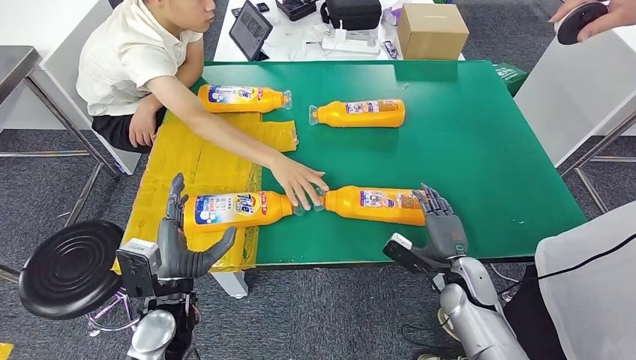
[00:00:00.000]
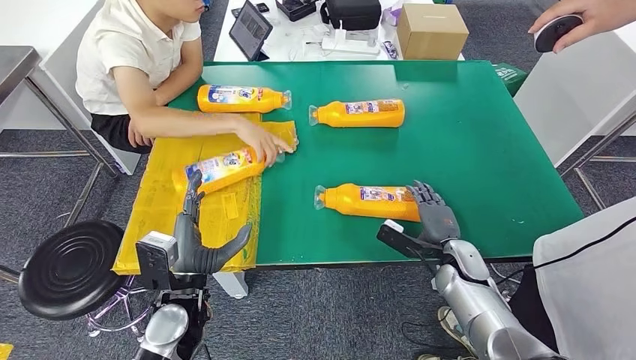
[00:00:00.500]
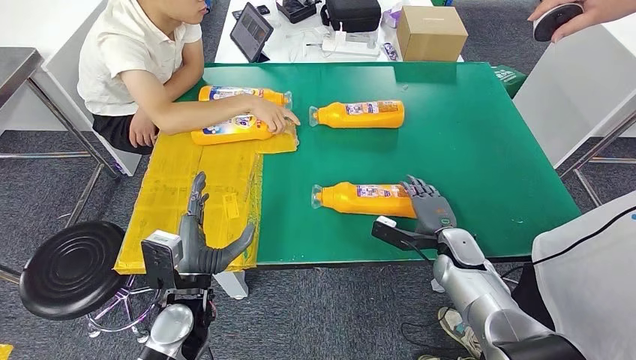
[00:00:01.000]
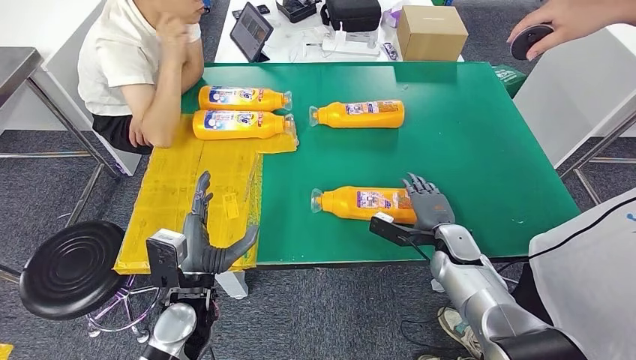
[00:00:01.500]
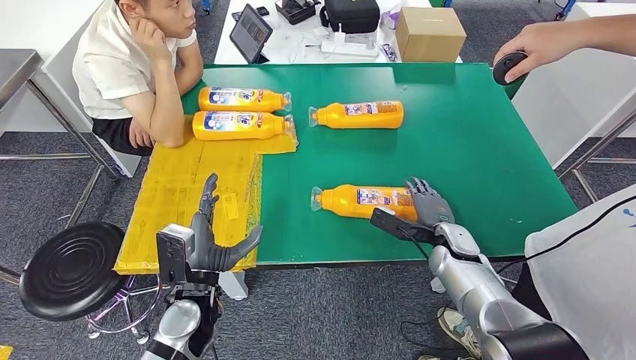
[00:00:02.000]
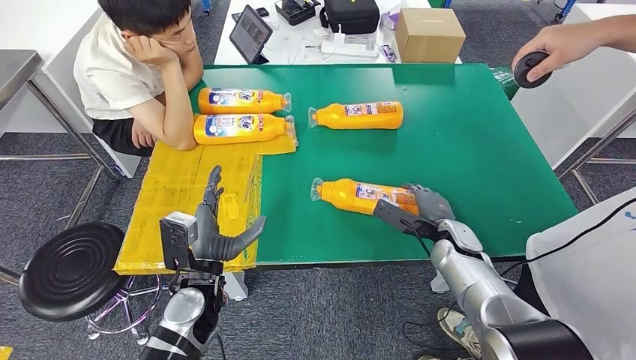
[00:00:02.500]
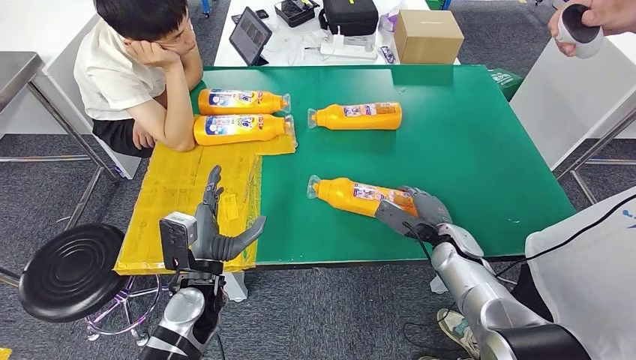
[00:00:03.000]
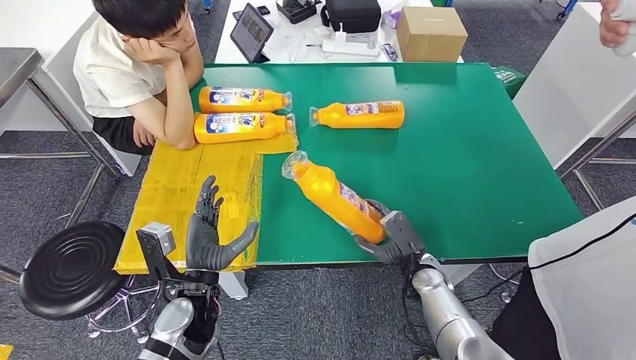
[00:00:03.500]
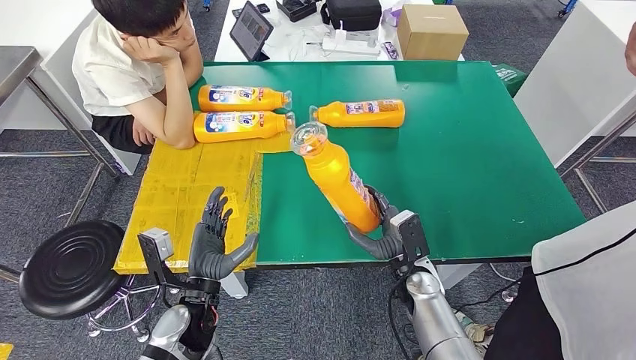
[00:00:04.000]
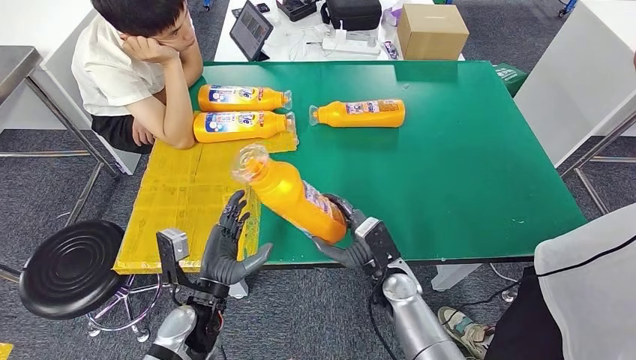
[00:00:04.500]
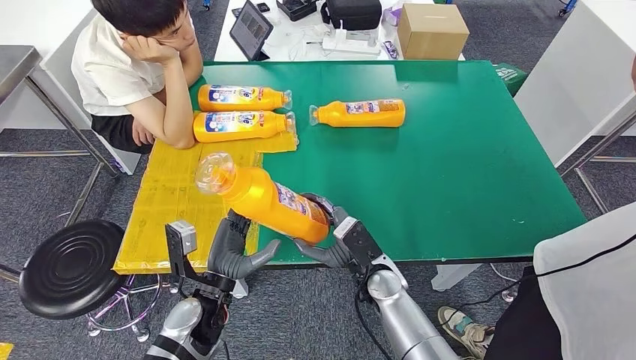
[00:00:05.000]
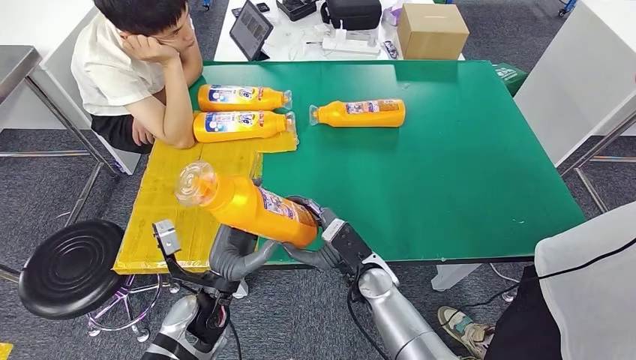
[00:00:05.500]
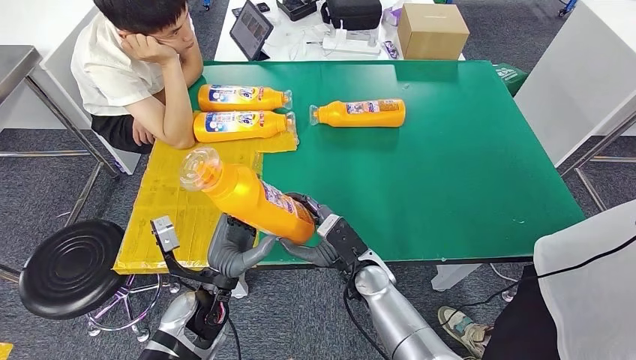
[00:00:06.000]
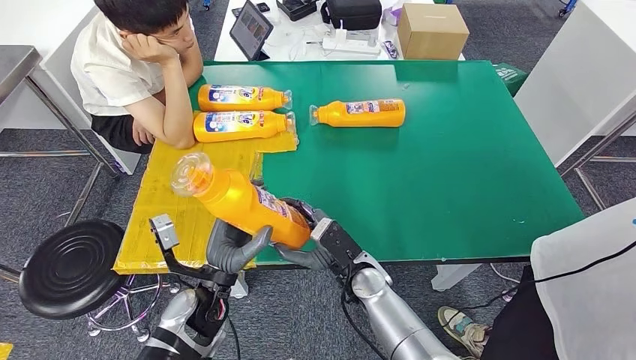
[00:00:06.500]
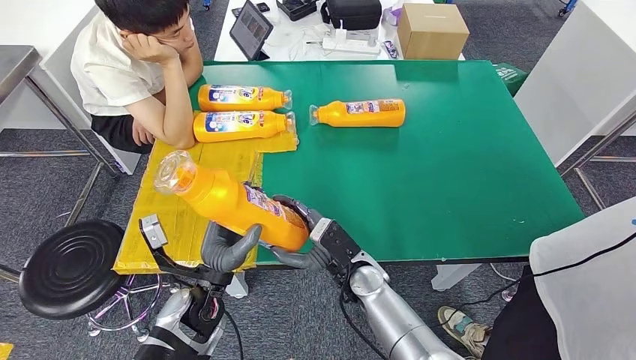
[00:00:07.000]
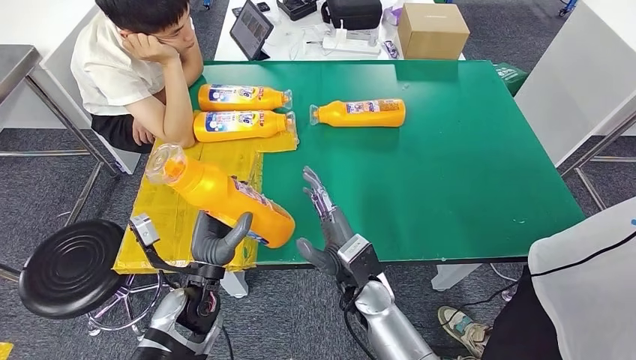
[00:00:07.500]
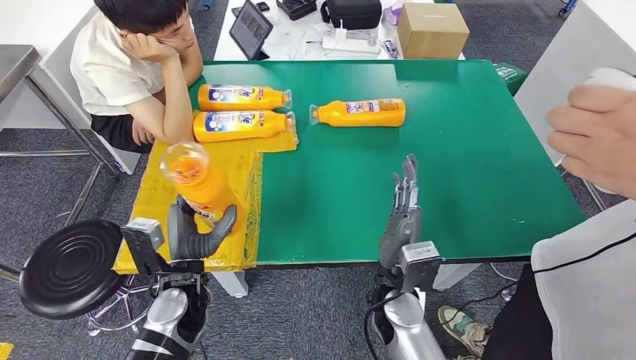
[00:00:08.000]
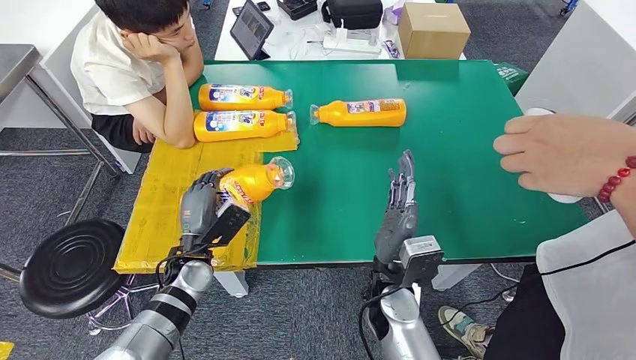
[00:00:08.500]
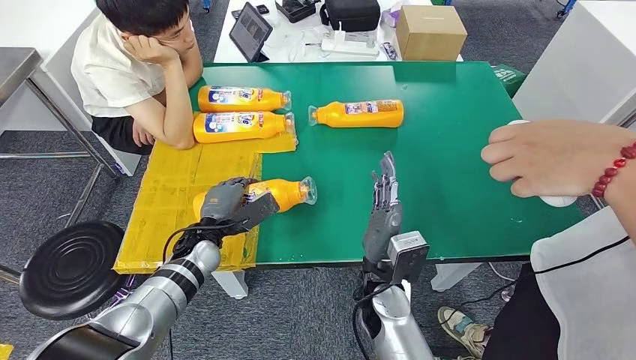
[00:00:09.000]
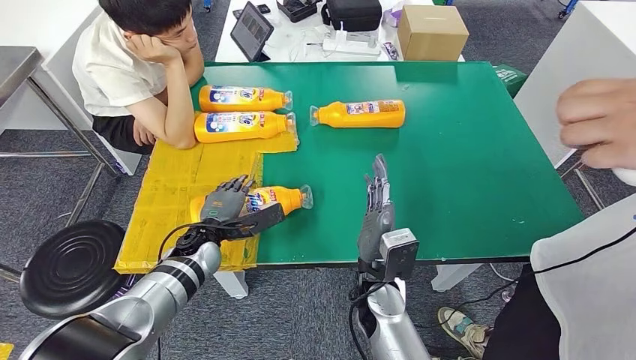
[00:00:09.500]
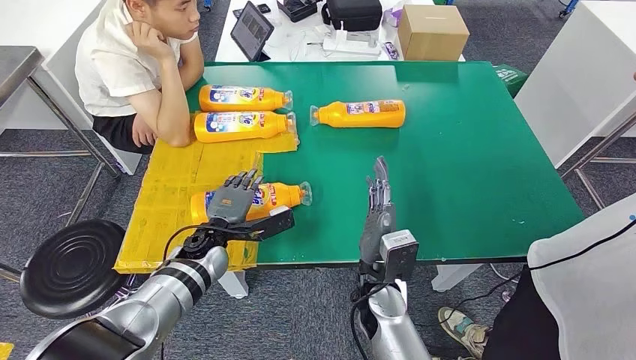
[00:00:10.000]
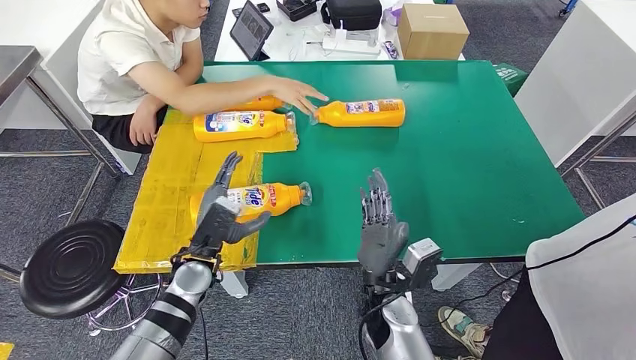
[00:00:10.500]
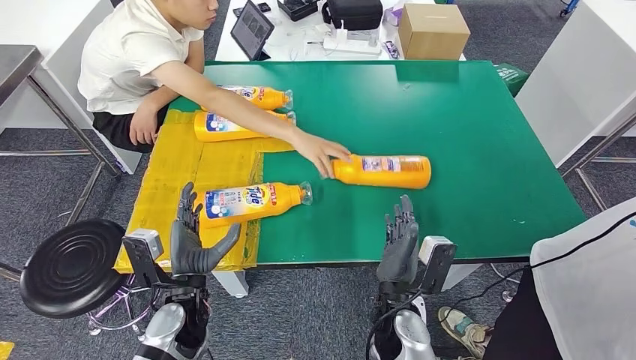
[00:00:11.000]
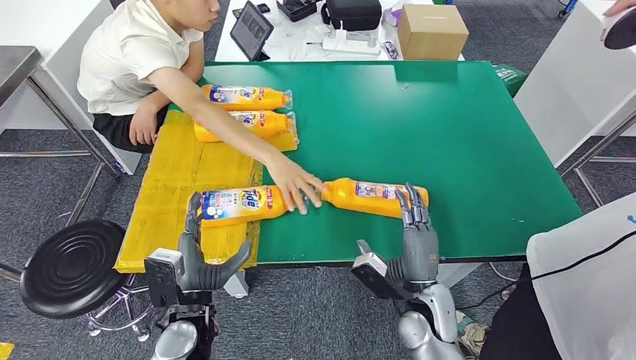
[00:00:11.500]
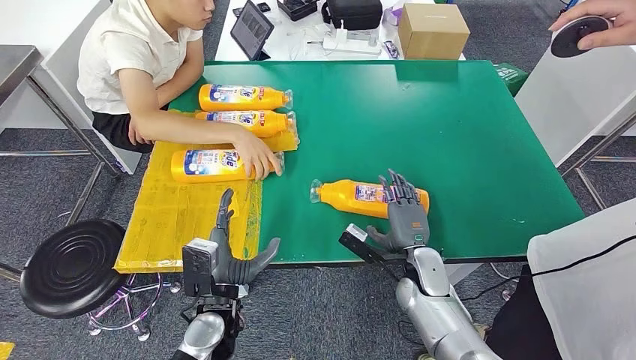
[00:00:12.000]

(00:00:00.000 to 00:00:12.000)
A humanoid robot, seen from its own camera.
Step, 00:00:00.000 - 00:00:04.000: Pick up the fast-moving consumer goods bottle from the table.
Step, 00:00:04.500 - 00:00:09.500: Flip the fast-moving consumer goods bottle to the front side.
00:00:04.000 - 00:00:06.000: The right hand heads to the left, covering roughly 10 cm.
00:00:06.000 - 00:00:08.000: The right hand ends up approximately 5 cm from where it was.

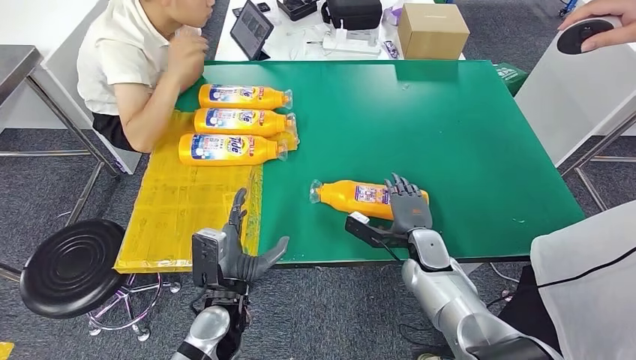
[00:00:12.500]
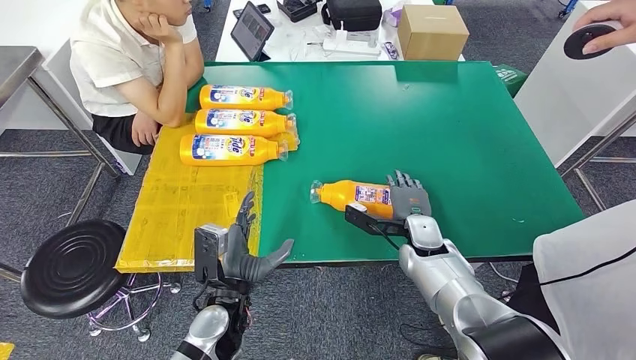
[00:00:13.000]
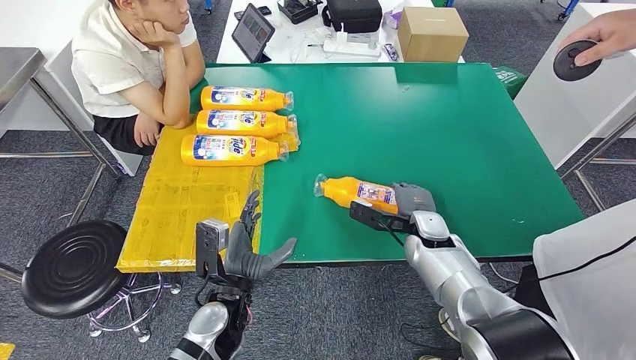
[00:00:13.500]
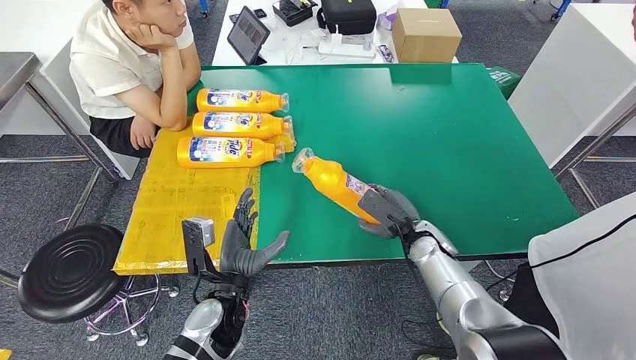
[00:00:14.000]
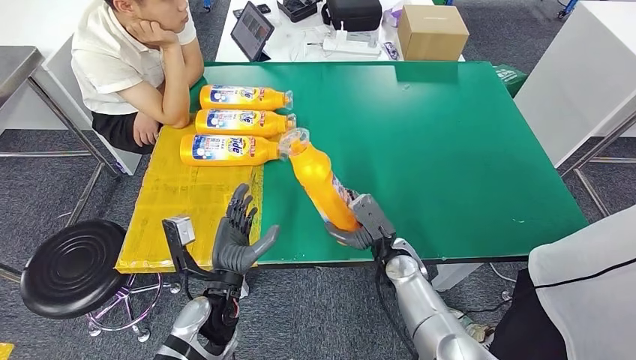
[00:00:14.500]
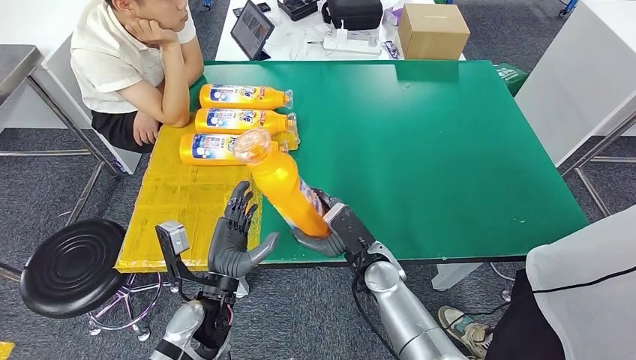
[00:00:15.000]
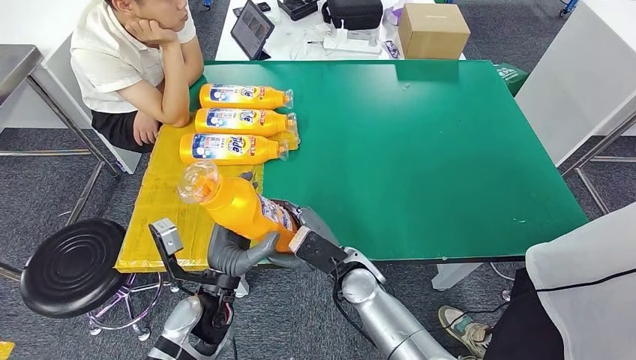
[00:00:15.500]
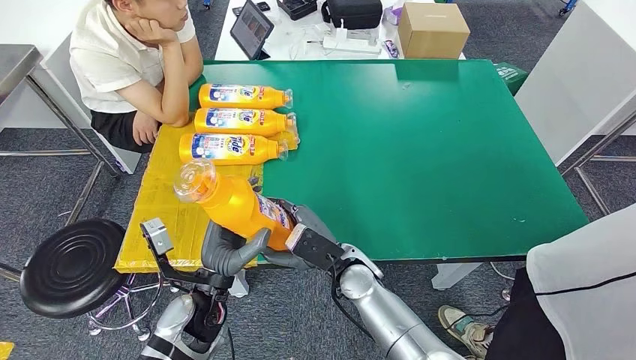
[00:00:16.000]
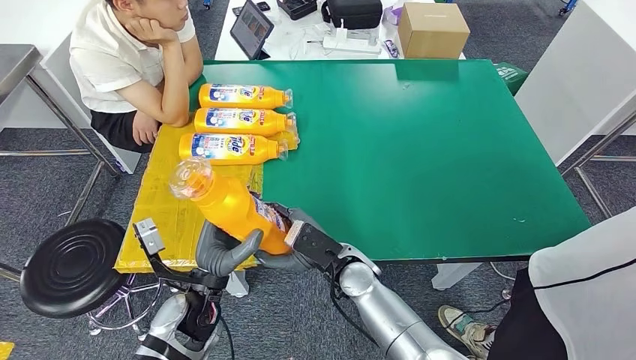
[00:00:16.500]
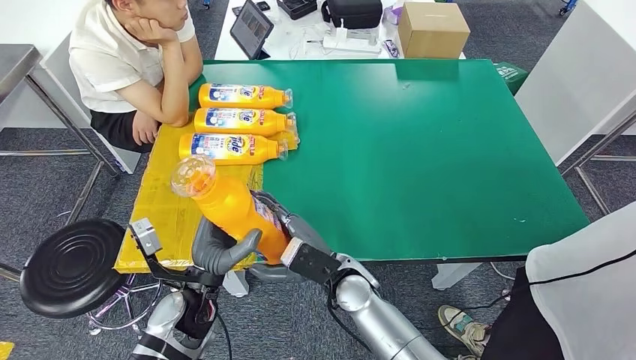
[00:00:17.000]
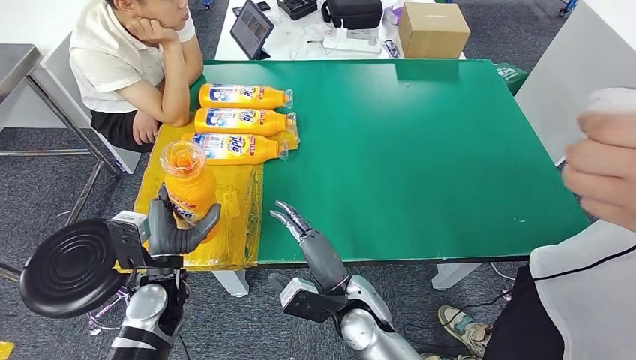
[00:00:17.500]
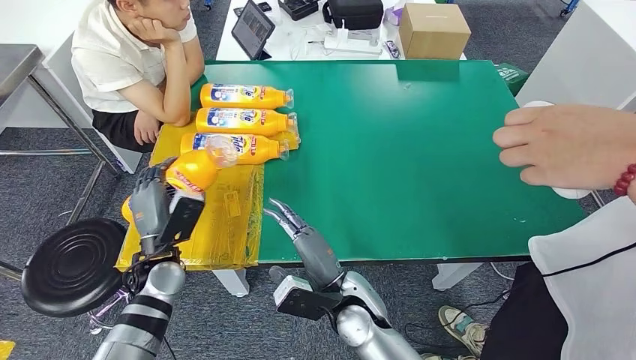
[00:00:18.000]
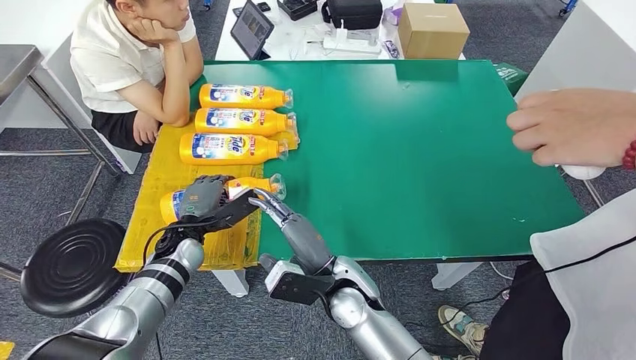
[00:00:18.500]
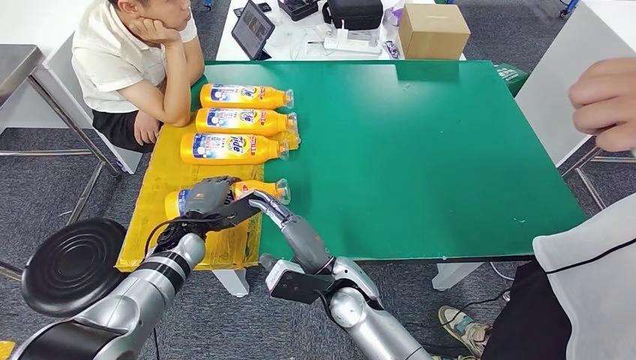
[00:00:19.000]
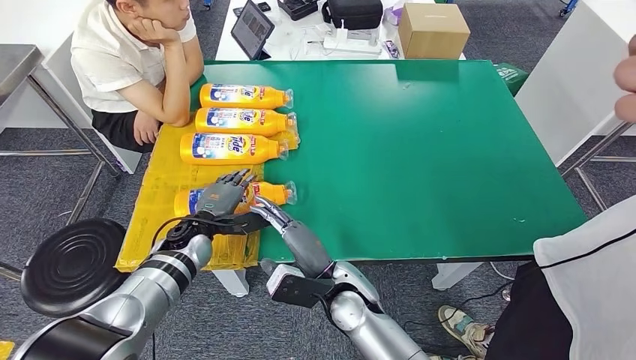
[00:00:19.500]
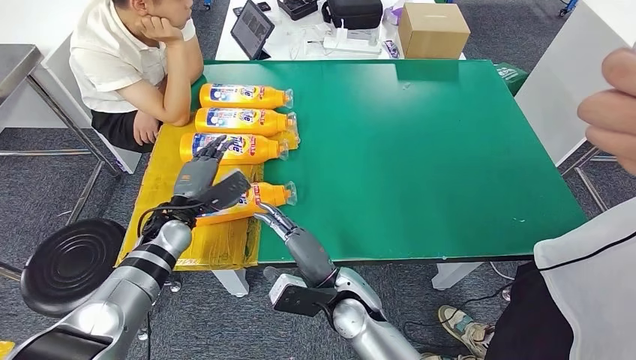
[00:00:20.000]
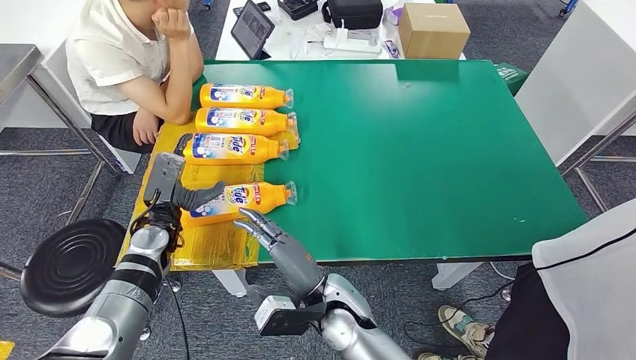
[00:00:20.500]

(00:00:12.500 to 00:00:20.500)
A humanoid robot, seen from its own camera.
Step, 00:00:12.500 - 00:00:15.000: Pick up the fast-moving consumer goods bottle from the table.
Step, 00:00:15.500 - 00:00:20.500: Flip the fast-moving consumer goods bottle to the front side.
00:00:14.500 - 00:00:16.500: The right hand is displaced to the left by some 10 cm.
00:00:16.500 - 00:00:18.500: The left hand moves forward and to the left, about 15 cm.
